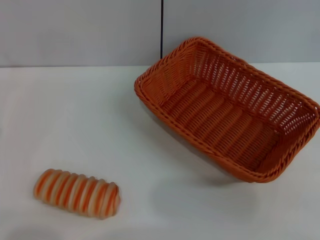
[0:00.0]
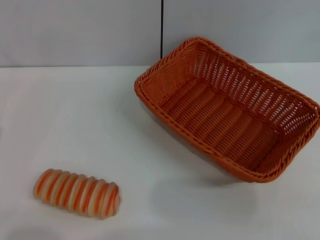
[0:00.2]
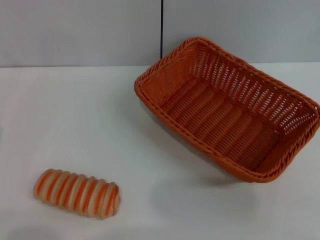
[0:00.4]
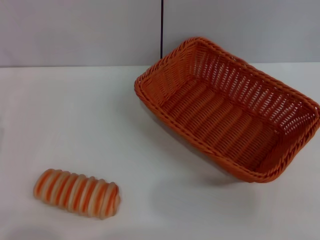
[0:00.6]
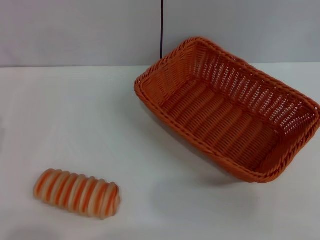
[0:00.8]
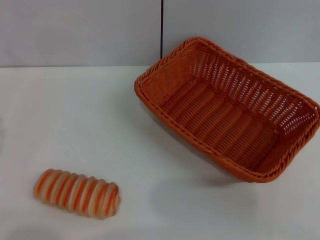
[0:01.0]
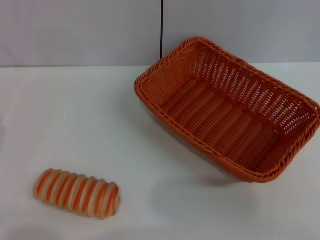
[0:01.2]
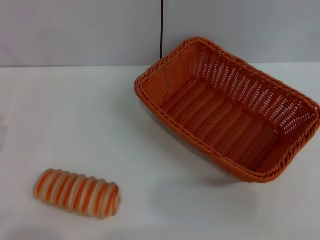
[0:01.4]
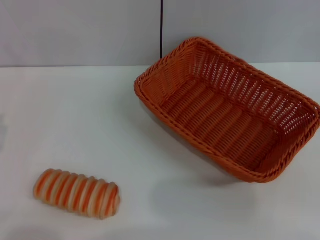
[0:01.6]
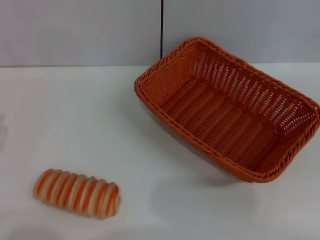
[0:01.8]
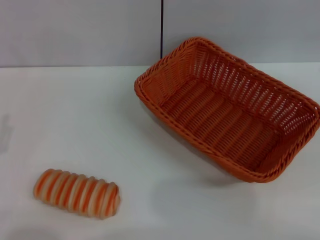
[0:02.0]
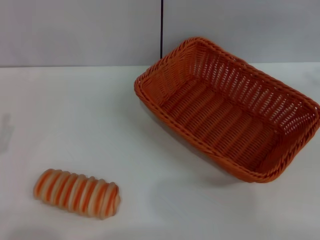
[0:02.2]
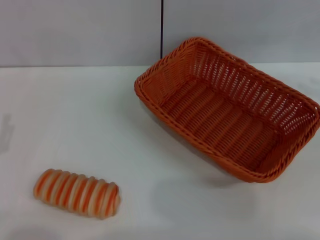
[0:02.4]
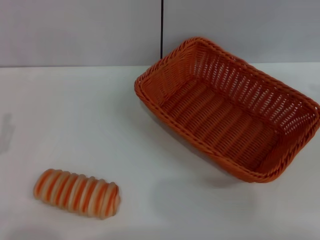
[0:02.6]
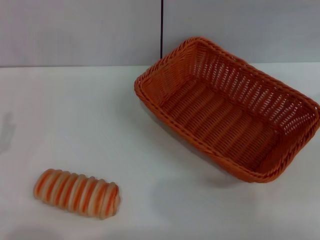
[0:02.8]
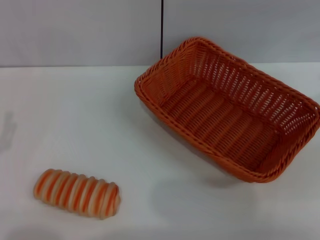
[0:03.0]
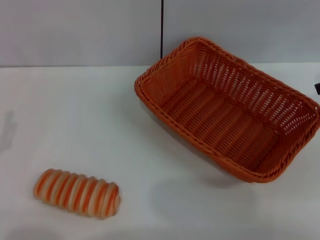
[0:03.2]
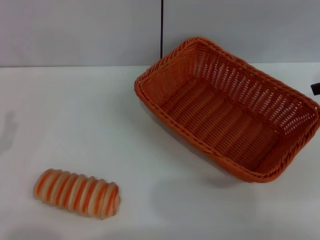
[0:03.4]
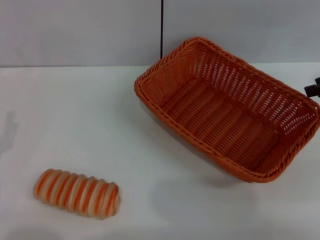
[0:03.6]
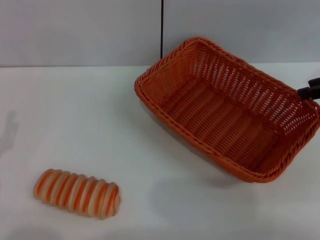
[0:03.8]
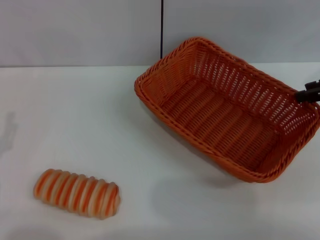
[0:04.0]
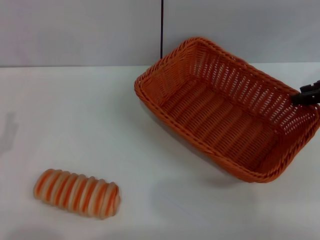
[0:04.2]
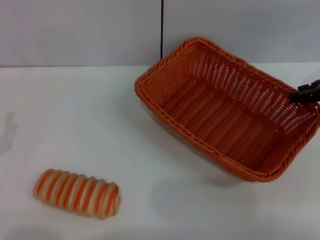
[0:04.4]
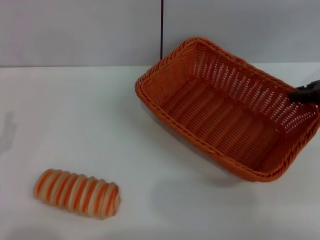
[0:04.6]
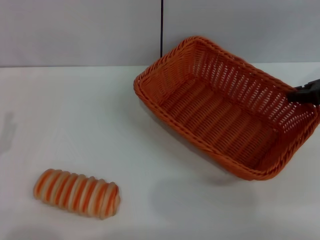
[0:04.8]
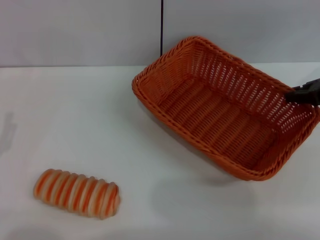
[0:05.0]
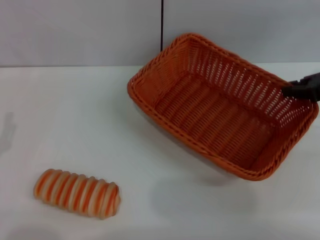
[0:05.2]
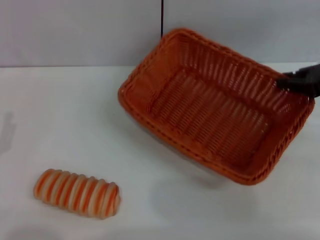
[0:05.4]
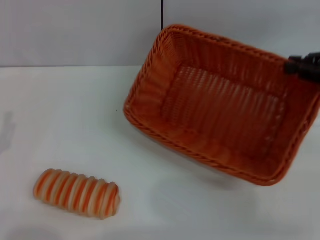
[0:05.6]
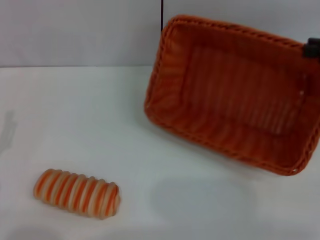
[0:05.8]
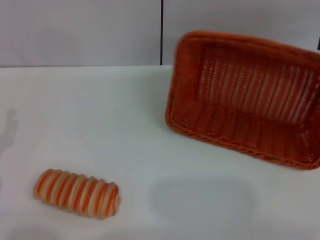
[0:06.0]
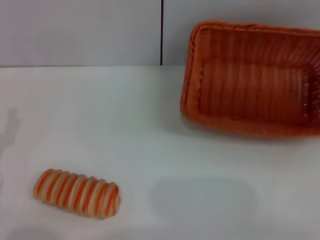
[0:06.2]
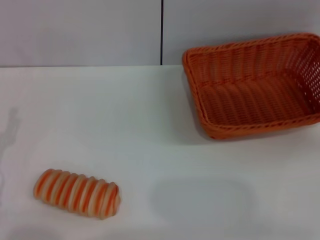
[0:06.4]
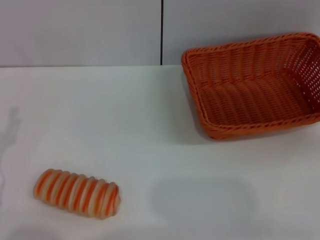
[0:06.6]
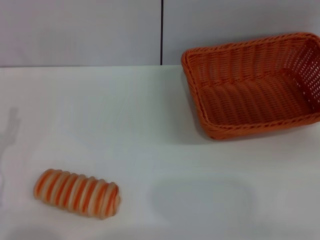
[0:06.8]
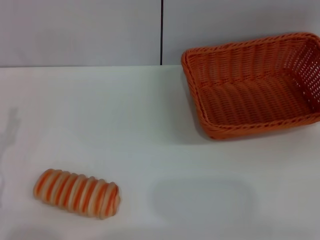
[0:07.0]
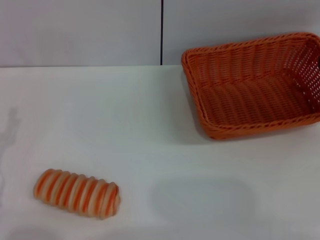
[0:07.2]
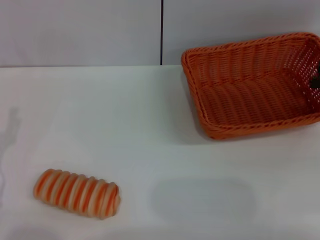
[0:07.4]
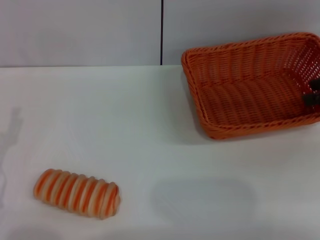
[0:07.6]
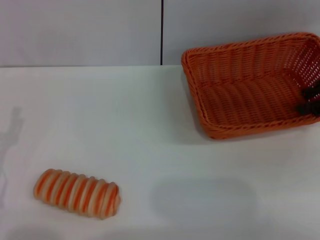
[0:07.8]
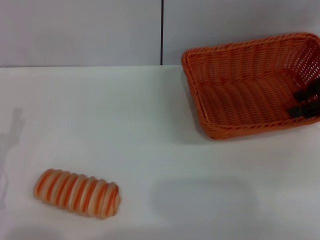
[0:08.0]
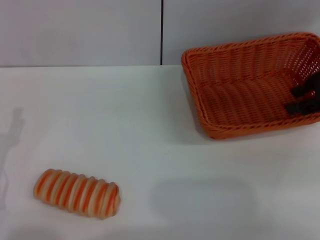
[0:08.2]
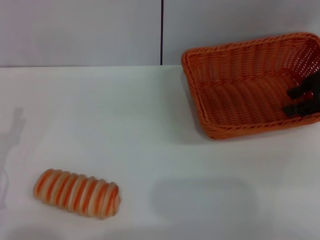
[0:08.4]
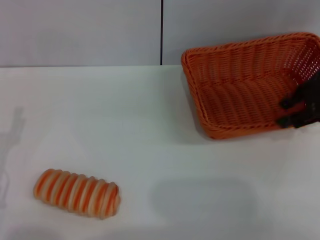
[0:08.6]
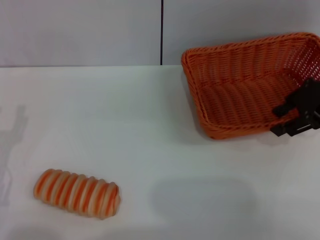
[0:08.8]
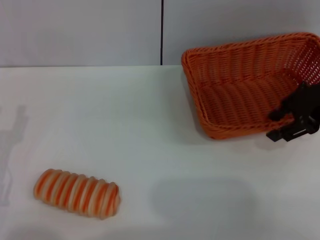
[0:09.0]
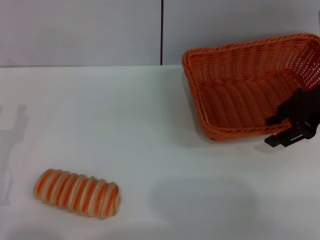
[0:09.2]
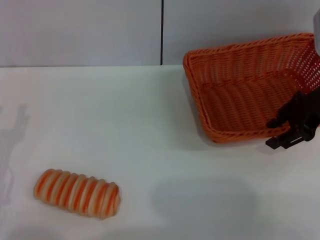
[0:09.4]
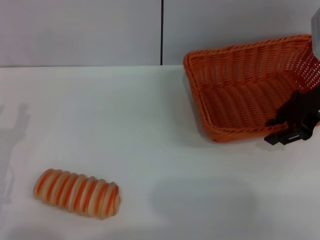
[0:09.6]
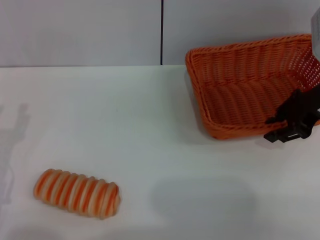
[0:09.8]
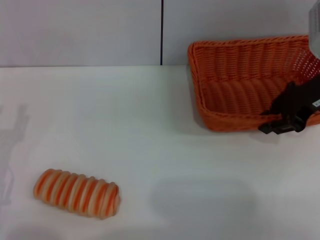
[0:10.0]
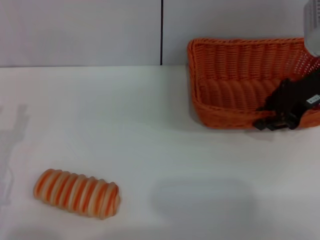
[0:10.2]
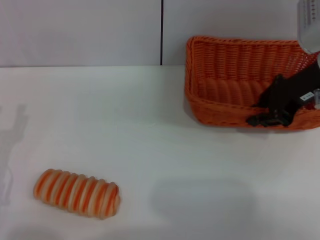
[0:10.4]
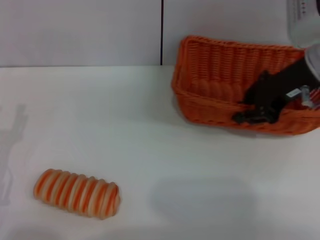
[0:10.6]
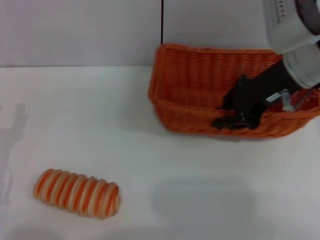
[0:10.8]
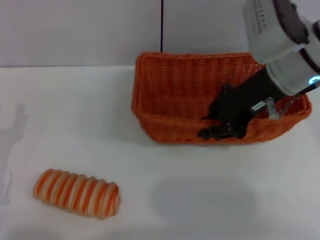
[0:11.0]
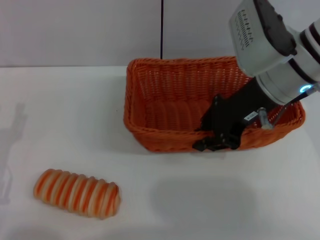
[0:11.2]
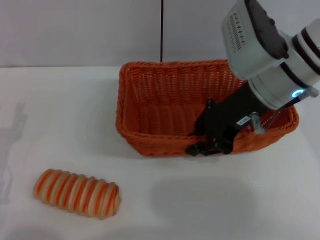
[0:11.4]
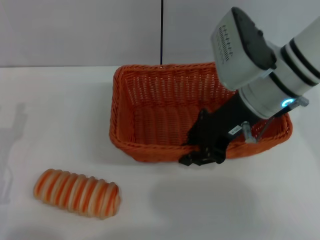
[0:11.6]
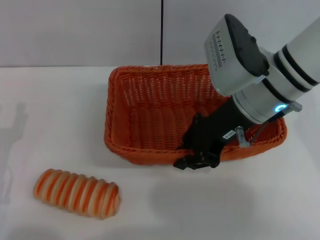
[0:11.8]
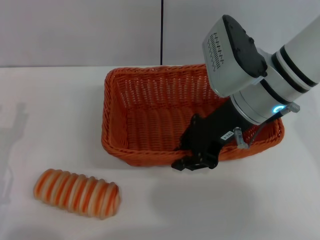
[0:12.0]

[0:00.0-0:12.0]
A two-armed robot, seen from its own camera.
Step, 0:00.0 to 0:10.2: Pick up the light basket with the right gripper.
0:01.6 to 0:03.0: The right gripper is displaced forward, to the left and upward by approximately 20 cm.
0:03.0 to 0:04.4: The right gripper moves downward, roughly 5 cm.
0:04.4 to 0:06.0: The right gripper heads backward, covering approximately 5 cm, and closes.
0:06.0 to 0:07.6: The right gripper opens up.
0:07.6 to 0:09.0: The right gripper travels to the left by some 10 cm.
0:09.0 to 0:10.4: The right gripper closes.
0:10.4 to 0:12.0: The right gripper heads to the left, covering some 10 cm.

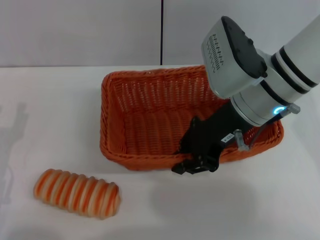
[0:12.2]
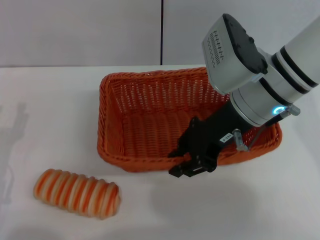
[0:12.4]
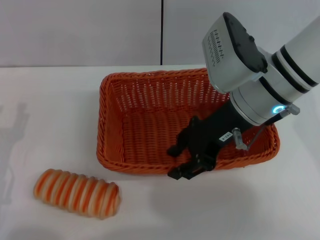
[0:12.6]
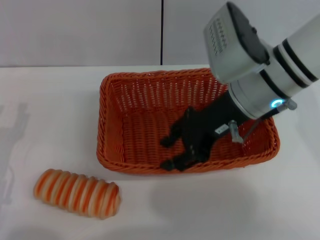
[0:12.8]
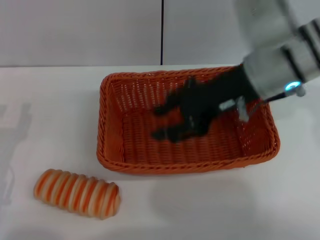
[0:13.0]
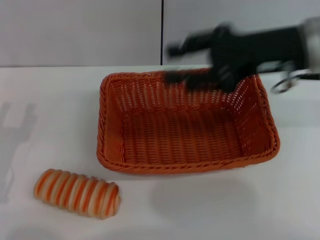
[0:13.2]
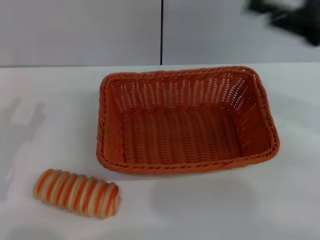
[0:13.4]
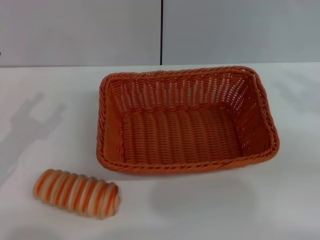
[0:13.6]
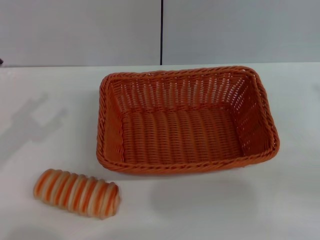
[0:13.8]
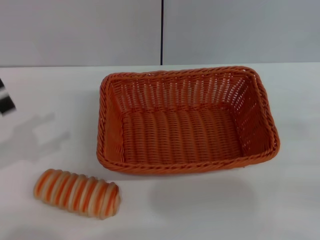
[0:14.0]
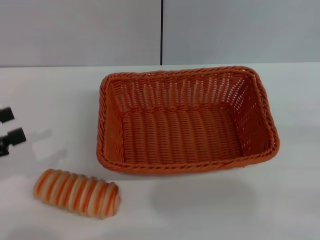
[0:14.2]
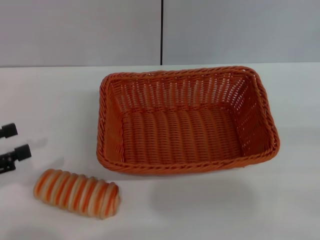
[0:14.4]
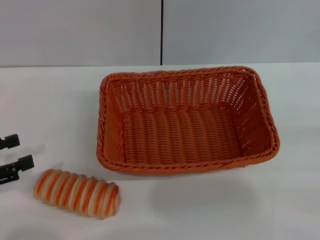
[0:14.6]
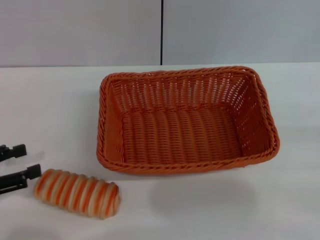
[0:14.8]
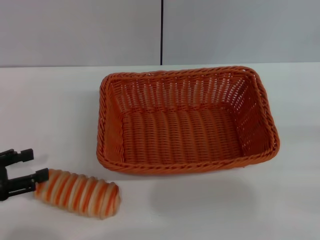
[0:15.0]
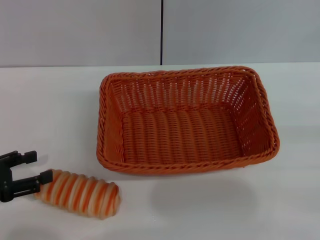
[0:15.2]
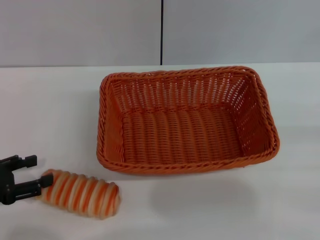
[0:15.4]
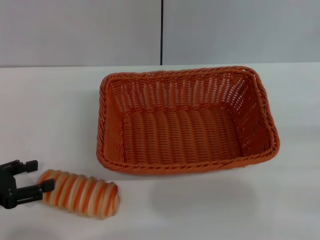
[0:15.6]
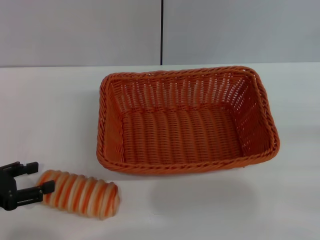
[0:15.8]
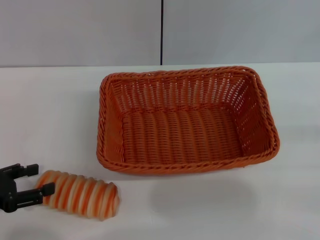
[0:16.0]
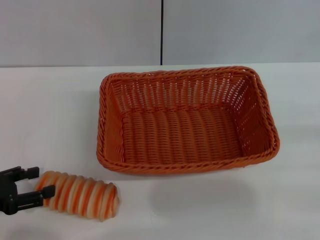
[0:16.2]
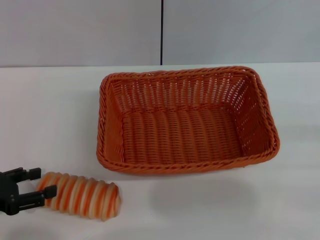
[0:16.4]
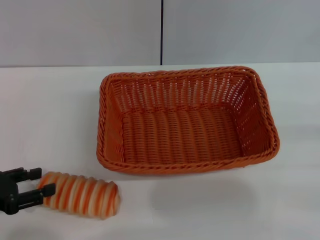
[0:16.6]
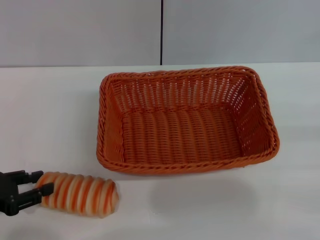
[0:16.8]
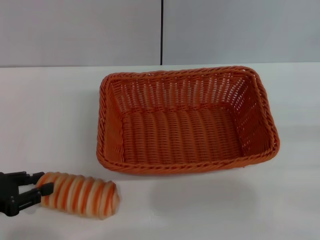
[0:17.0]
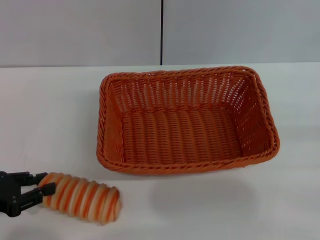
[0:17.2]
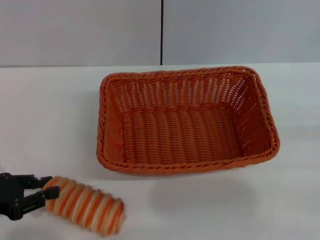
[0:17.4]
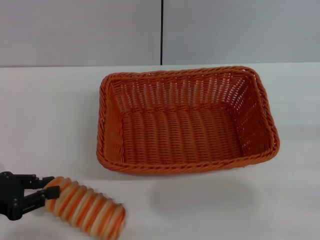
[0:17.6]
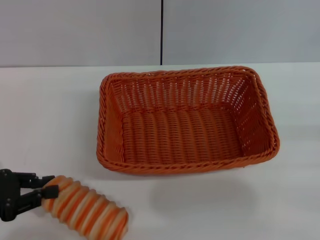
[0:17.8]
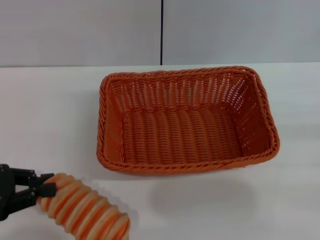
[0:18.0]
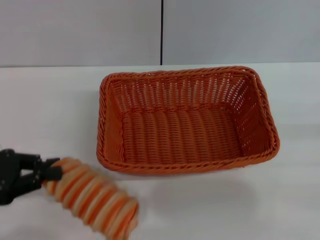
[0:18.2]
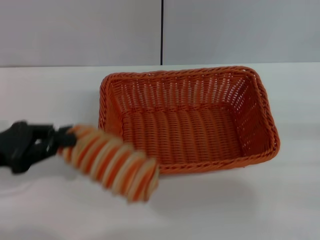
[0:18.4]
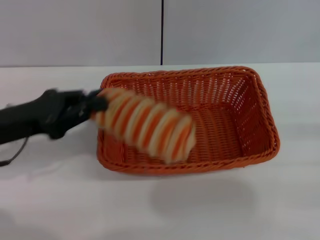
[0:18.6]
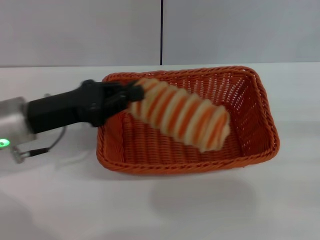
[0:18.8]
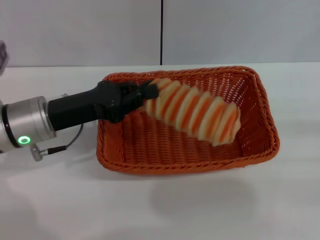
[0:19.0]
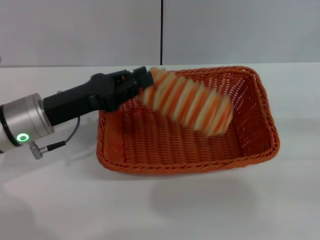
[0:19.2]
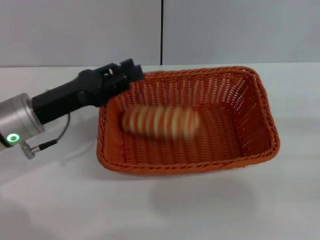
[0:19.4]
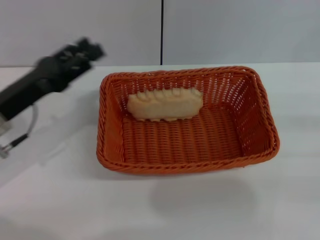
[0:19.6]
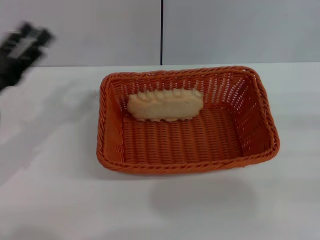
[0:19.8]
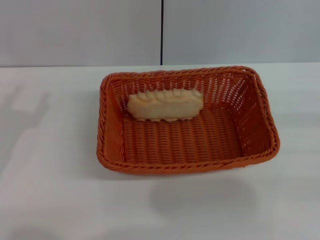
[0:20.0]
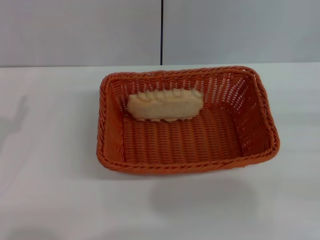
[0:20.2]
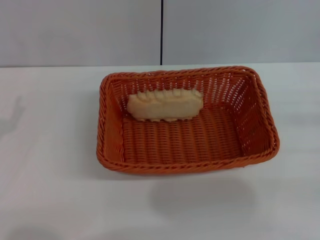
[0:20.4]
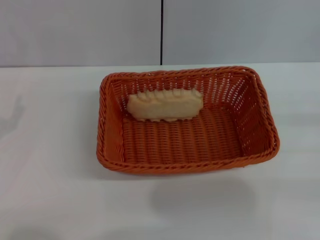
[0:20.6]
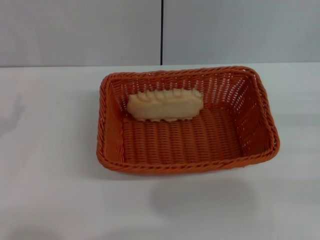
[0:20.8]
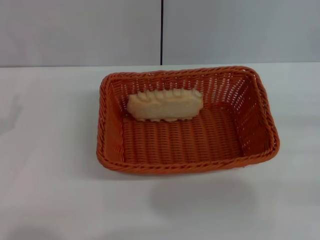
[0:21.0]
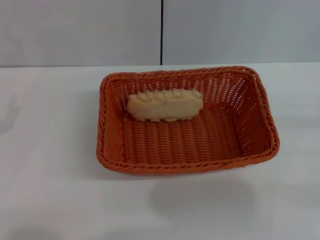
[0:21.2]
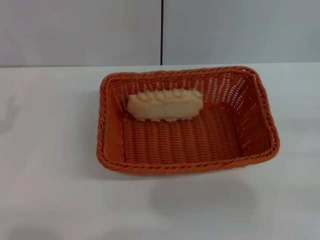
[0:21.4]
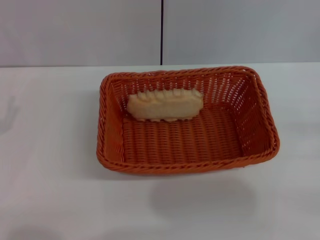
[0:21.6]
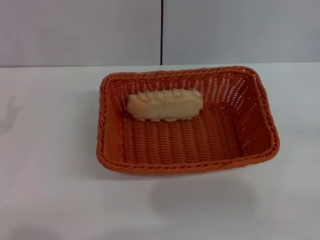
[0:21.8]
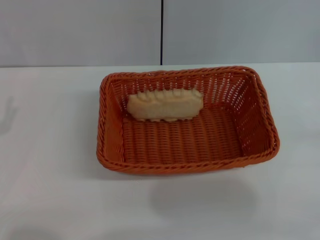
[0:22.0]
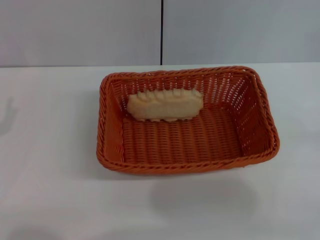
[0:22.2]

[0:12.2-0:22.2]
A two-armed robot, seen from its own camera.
Step, 0:13.4 to 0:17.8: Pick up the long bread with the left gripper.
Step, 0:18.2 to 0:19.4: Place the long bread into the light basket with the left gripper.
0:12.2 to 0:13.6: The right gripper moves to the right, some 20 cm, and opens. Meanwhile the left gripper shifts by roughly 5 cm.
0:15.0 to 0:16.4: There are only small adjustments of the grippers.
0:16.4 to 0:18.0: The left gripper closes its fingers.
0:18.0 to 0:19.4: The left gripper heads to the right and forward, covering about 15 cm.
0:19.4 to 0:20.8: The left gripper moves backward and to the left, some 15 cm, and opens up.
